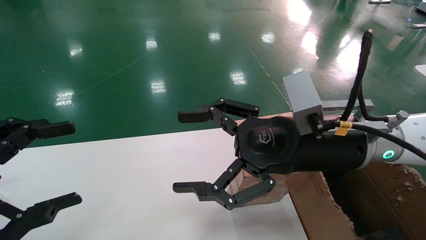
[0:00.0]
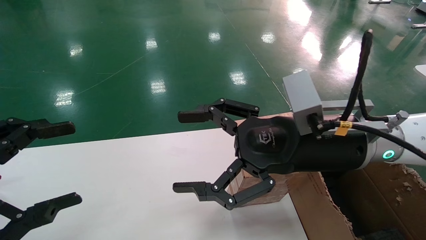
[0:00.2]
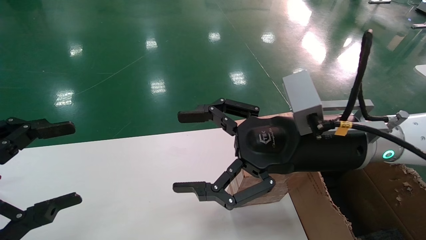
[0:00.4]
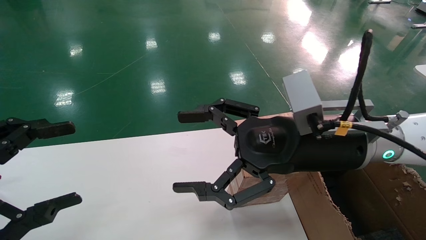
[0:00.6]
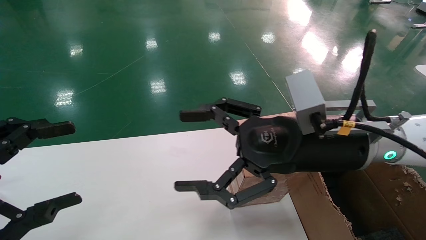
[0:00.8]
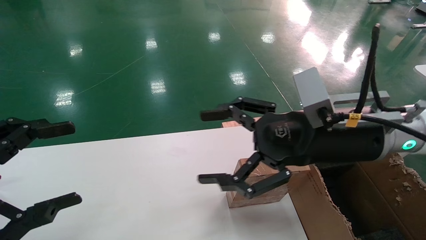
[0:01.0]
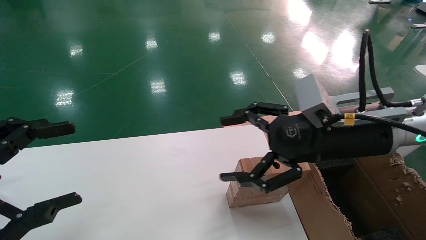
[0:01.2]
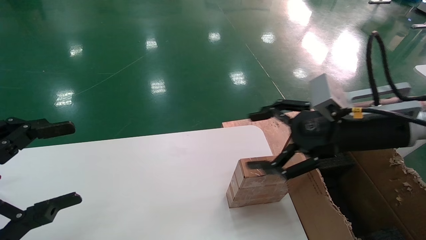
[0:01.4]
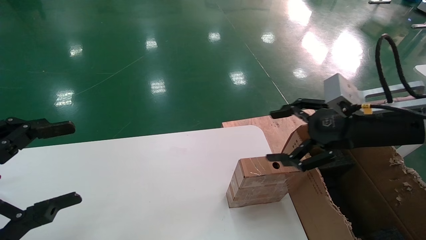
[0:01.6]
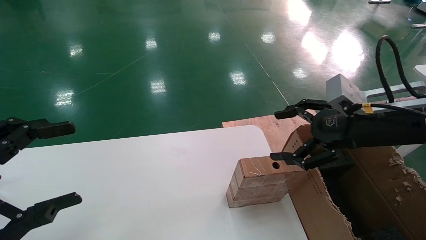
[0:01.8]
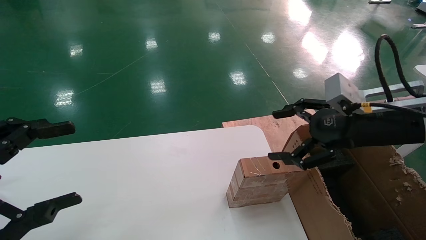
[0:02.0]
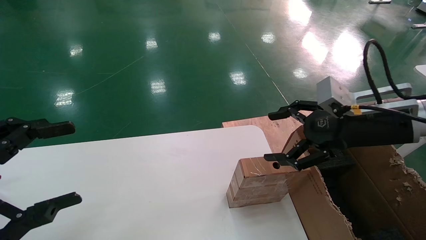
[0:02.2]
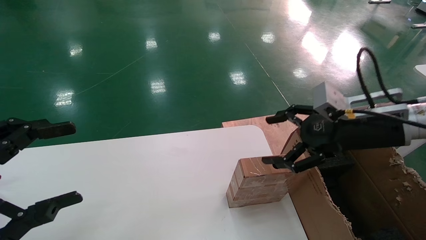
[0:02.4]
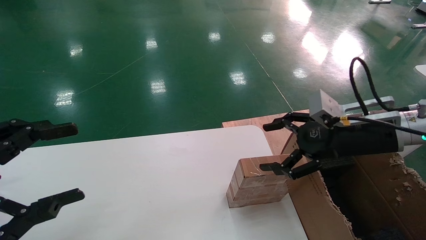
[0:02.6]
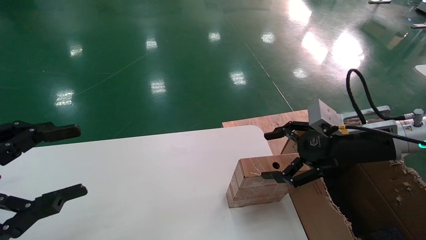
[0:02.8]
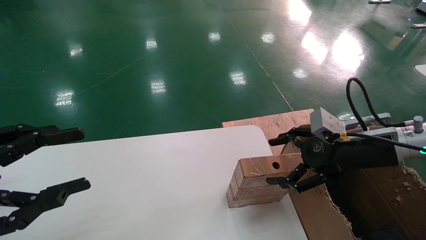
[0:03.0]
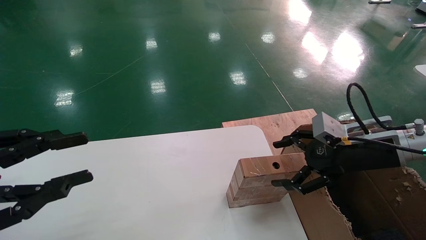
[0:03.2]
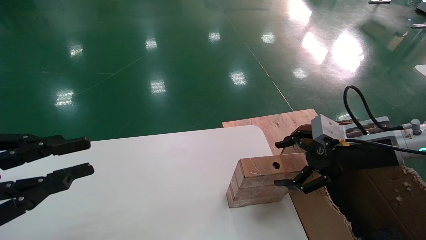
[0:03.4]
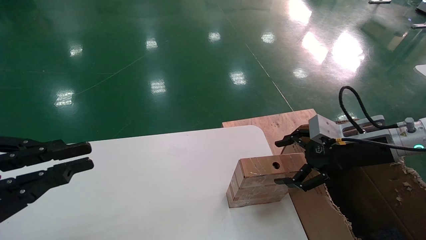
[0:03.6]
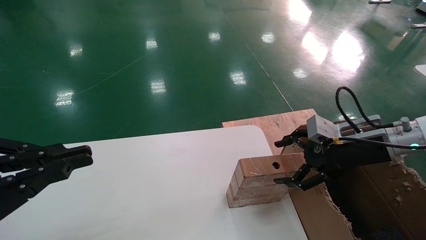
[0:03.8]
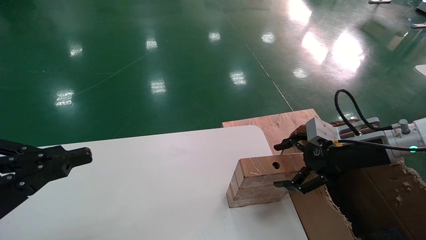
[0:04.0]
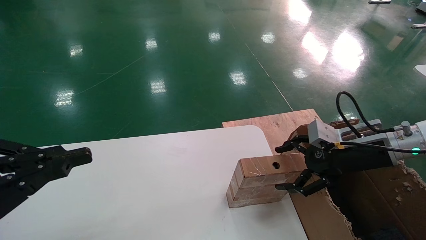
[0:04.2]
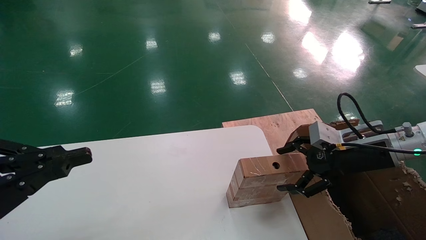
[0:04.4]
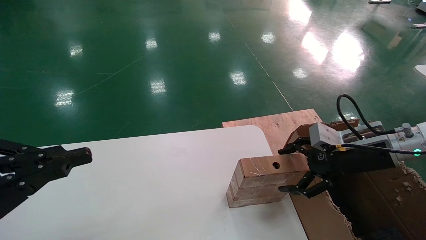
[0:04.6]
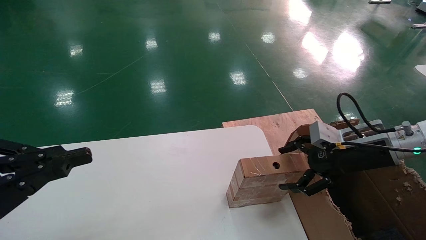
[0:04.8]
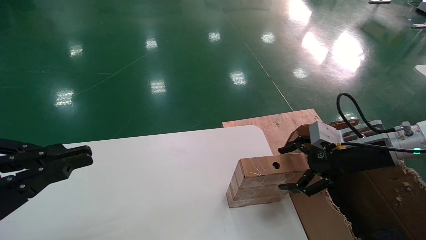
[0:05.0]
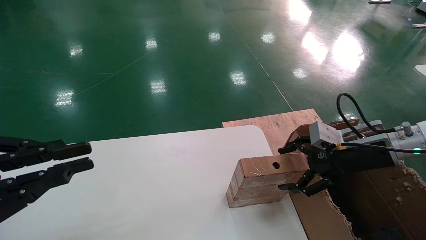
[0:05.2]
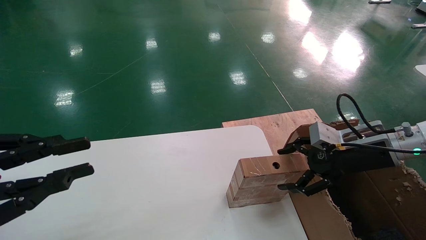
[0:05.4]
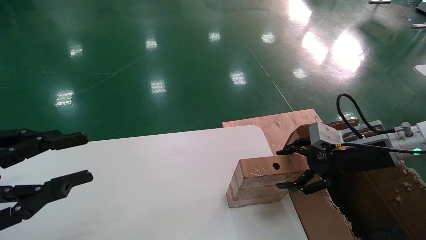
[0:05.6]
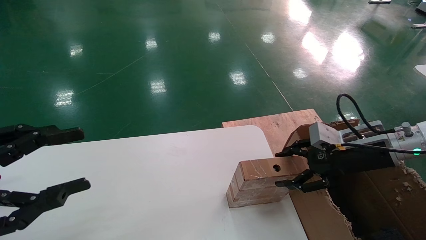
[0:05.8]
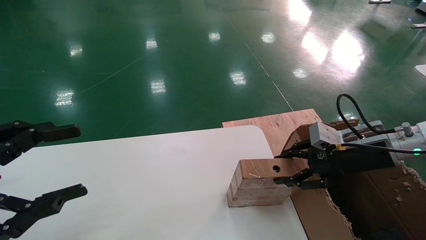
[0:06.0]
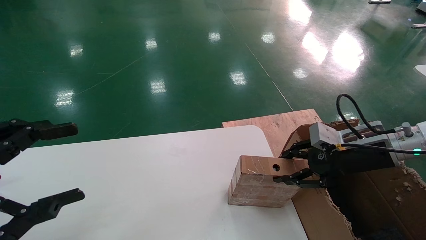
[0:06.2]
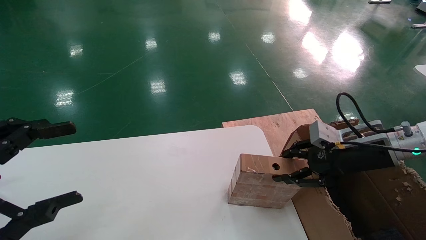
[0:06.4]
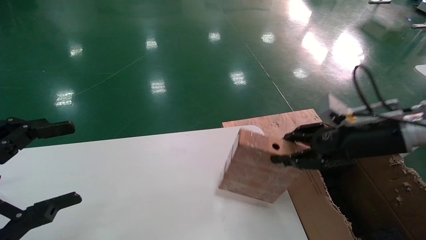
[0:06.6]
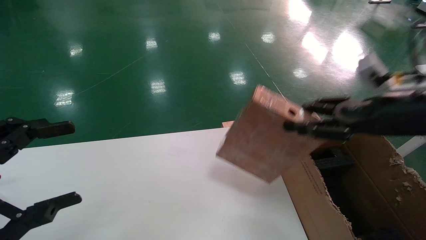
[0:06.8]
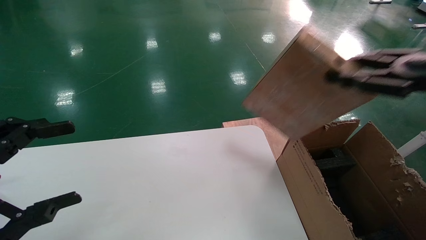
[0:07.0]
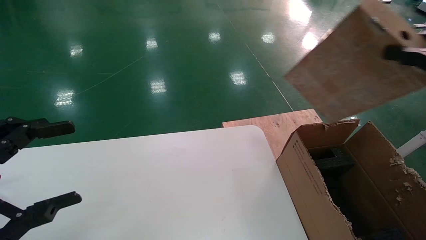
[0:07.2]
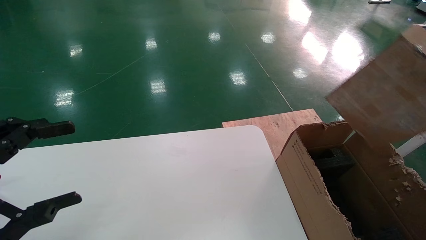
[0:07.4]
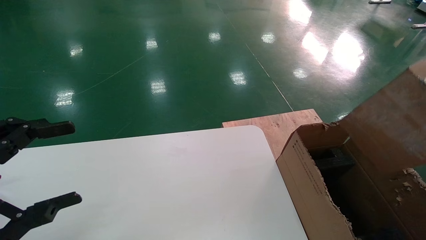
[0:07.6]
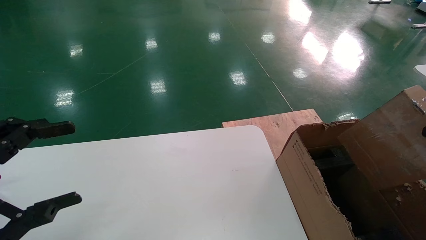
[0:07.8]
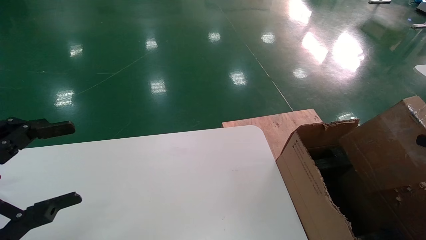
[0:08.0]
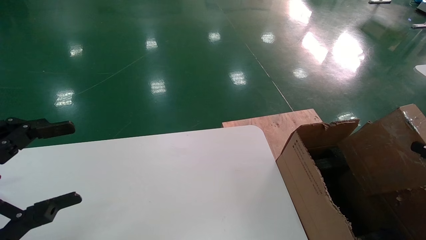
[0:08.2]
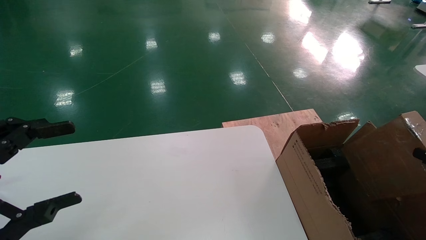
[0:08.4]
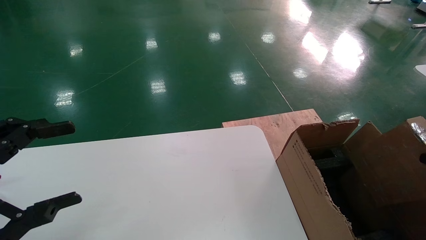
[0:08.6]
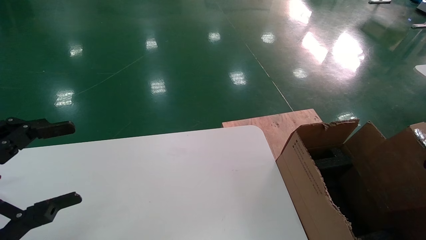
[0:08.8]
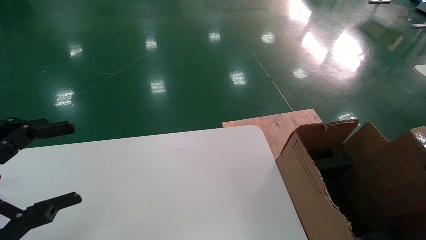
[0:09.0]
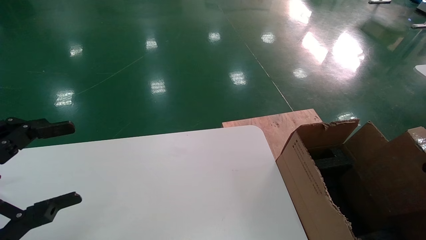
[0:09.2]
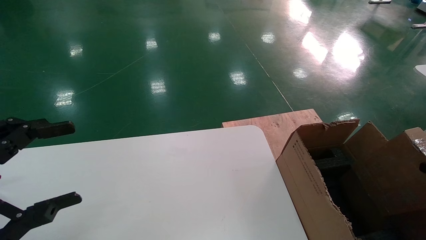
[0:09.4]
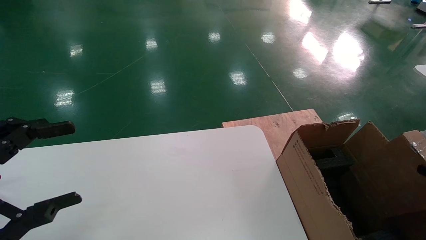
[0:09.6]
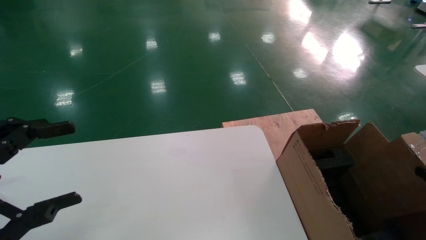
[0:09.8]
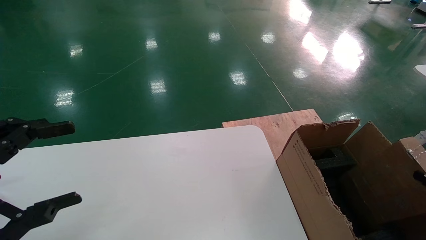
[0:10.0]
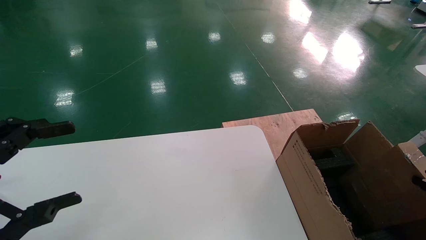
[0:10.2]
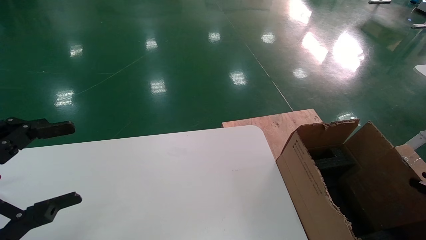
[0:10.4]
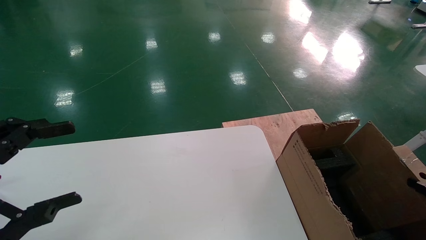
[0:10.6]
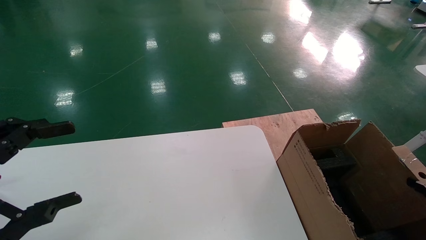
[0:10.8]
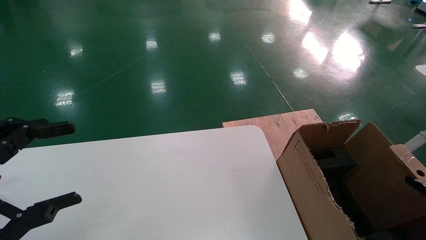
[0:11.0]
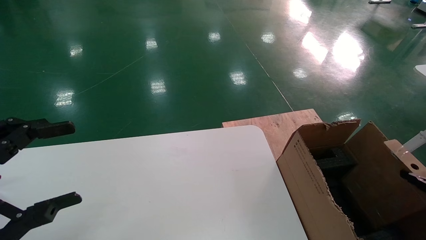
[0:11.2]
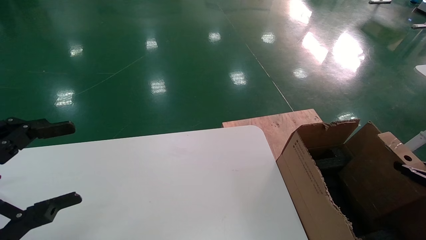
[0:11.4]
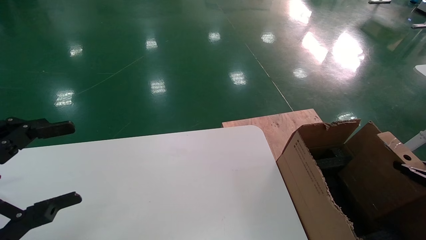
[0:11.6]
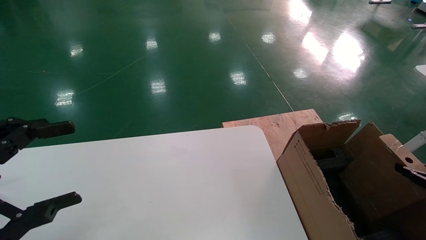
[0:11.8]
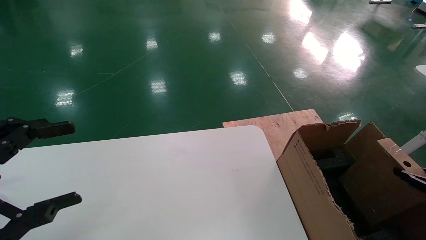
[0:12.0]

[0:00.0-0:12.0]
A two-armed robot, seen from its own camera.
Task of the whole recording: put the box on the table into the big box.
Step, 0:01.4 to 0:06.2: Pick up the mouse and the power cord paper box.
0:00.0 to 0:01.6: The right gripper goes some 10 cm to the right.
0:01.6 to 0:03.0: The right gripper shifts about 5 cm downward.
0:03.0 to 0:04.4: The left gripper closes up.
0:04.4 to 0:06.0: The right gripper closes up. Meanwhile the left gripper opens its fingers.
0:06.0 to 0:07.6: The right gripper shifts approximately 25 cm backward, to the right and upward, and closes its fingers.
0:07.6 to 0:09.0: The right gripper shifts roughly 15 cm downward.
0:09.0 to 0:10.4: The right gripper moves downward, about 5 cm.
0:10.4 to 0:12.0: The grippers make only small movements.

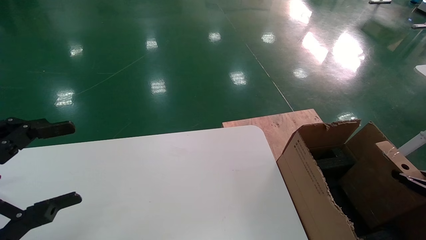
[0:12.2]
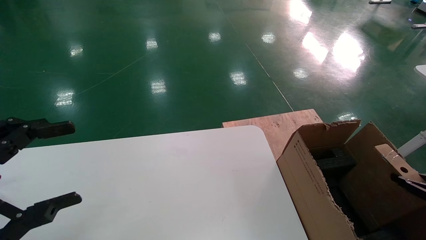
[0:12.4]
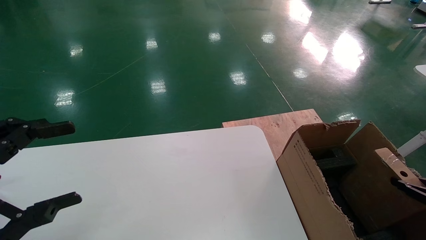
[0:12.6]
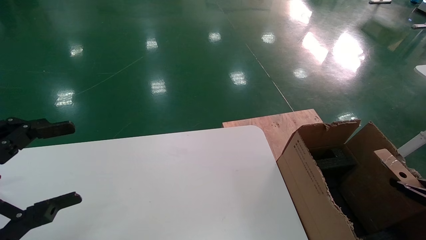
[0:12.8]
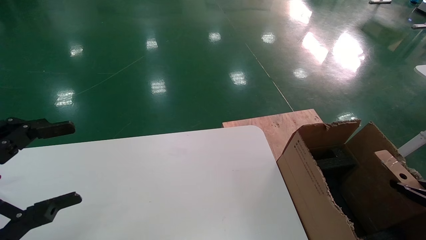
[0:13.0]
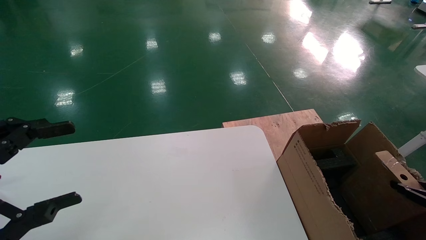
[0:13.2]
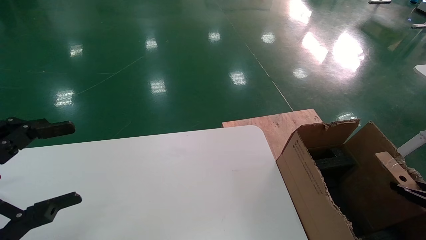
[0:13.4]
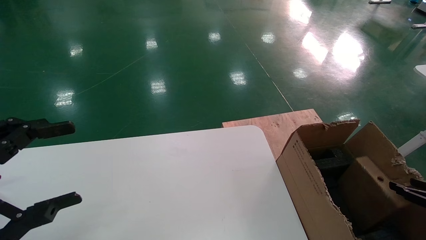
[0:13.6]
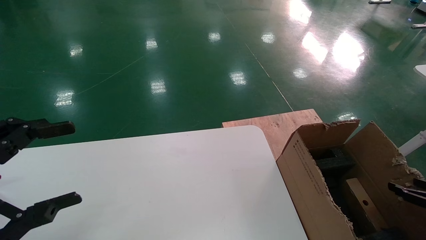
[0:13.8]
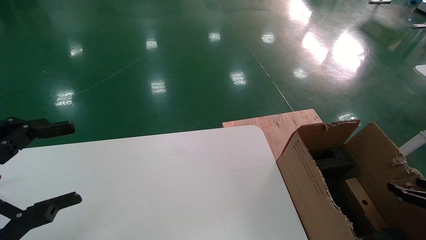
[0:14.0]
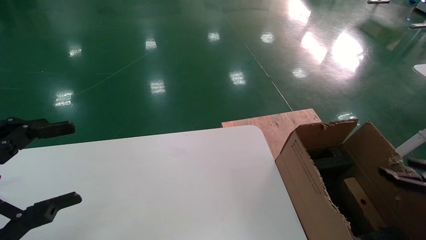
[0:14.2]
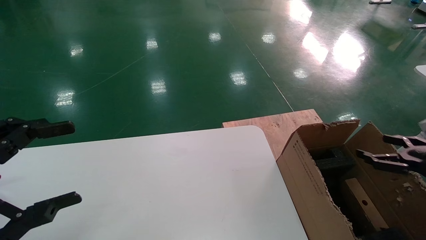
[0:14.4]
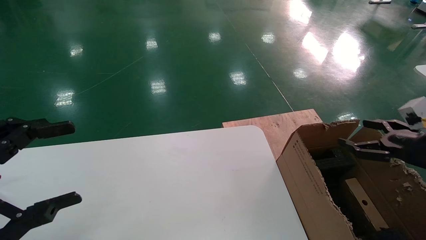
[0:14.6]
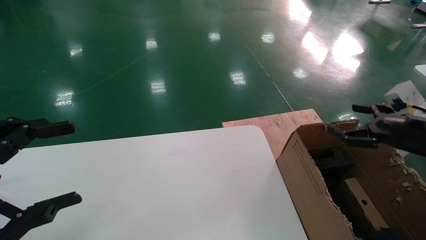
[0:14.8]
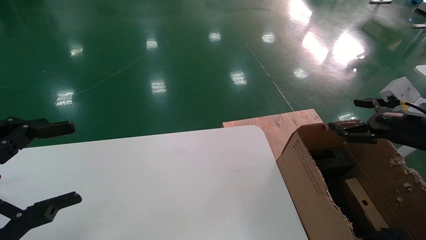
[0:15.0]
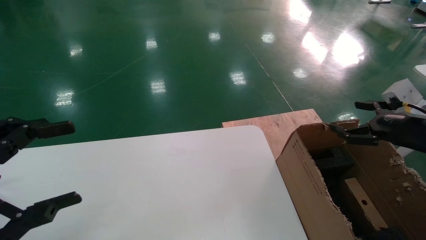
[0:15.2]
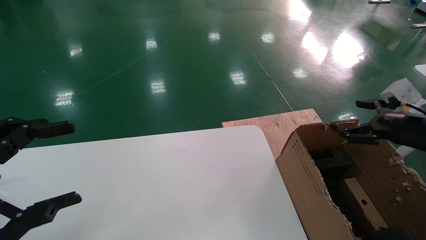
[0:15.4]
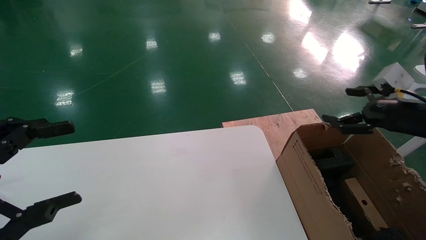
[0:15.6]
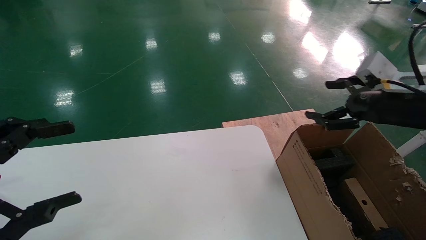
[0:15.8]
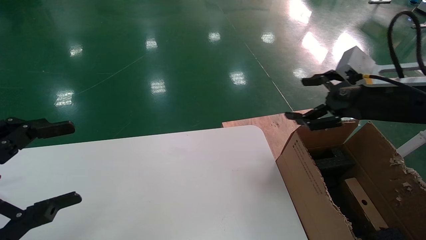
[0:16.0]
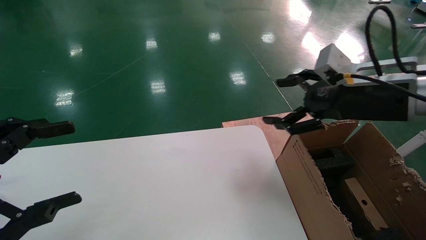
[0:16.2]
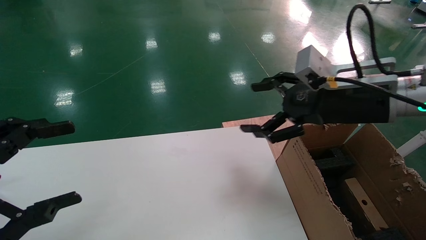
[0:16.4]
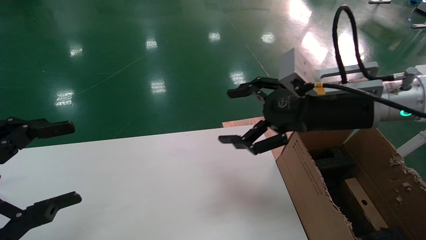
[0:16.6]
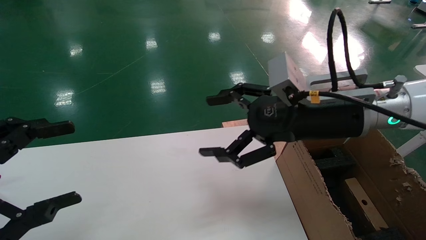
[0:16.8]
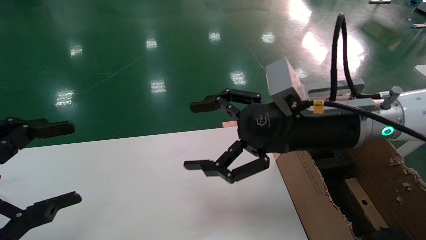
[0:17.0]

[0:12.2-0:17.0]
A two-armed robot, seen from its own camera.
Task of the whole recording: put the box on the table into the big box.
0:12.2 to 0:13.8: The right gripper opens.
0:13.8 to 0:15.4: The right gripper travels upward, to the left and forward by roughly 25 cm, and opens its fingers.
0:15.4 to 0:17.0: The right gripper goes about 25 cm to the left.
